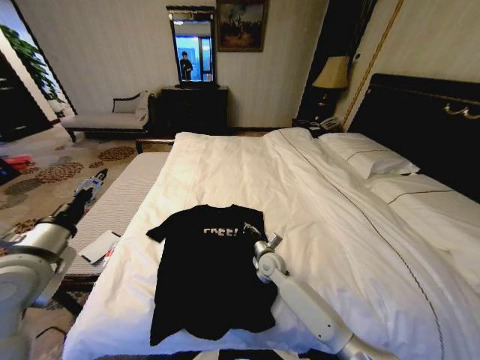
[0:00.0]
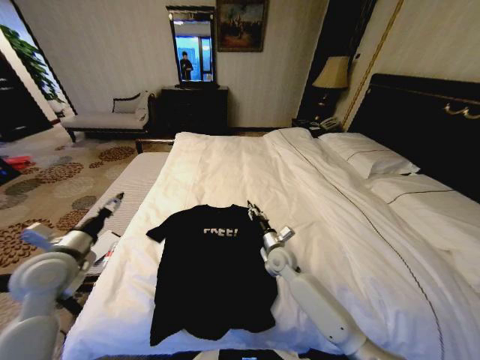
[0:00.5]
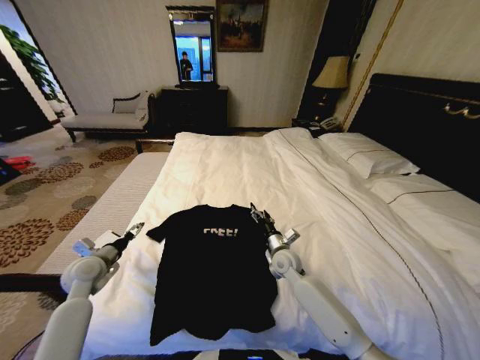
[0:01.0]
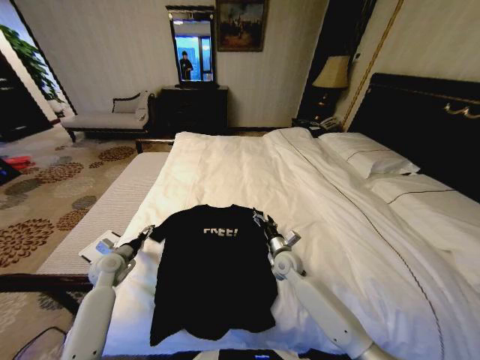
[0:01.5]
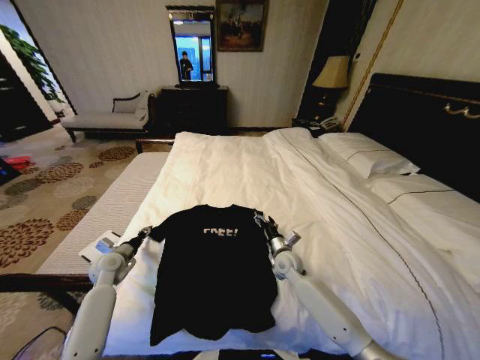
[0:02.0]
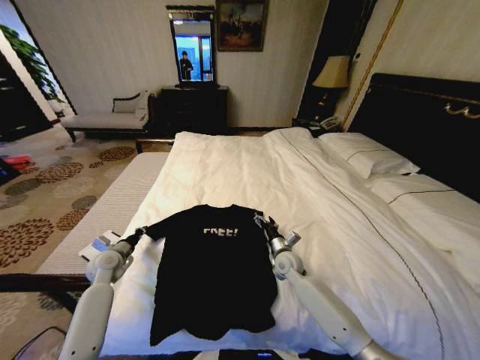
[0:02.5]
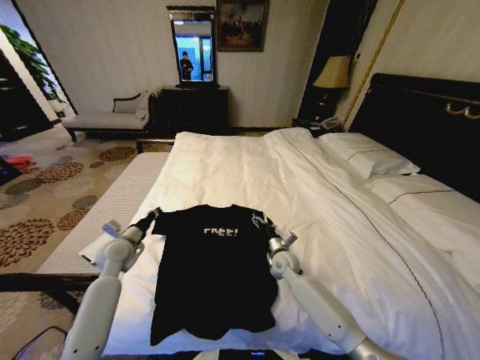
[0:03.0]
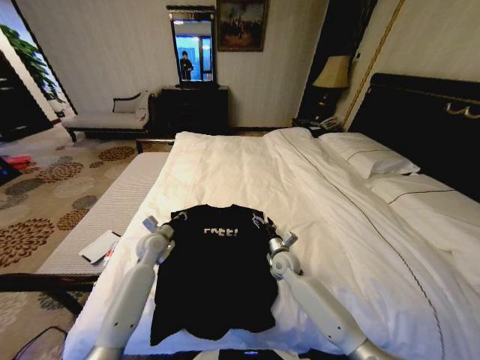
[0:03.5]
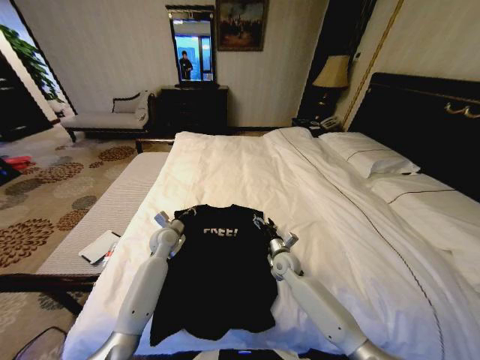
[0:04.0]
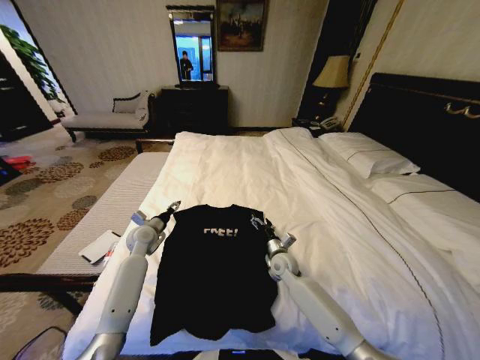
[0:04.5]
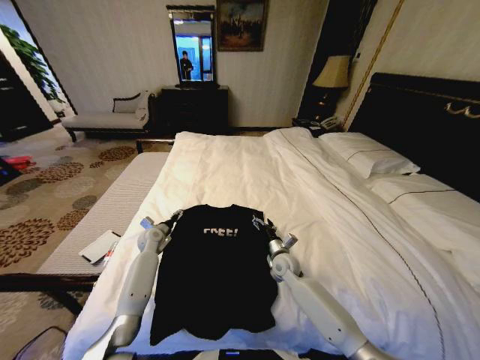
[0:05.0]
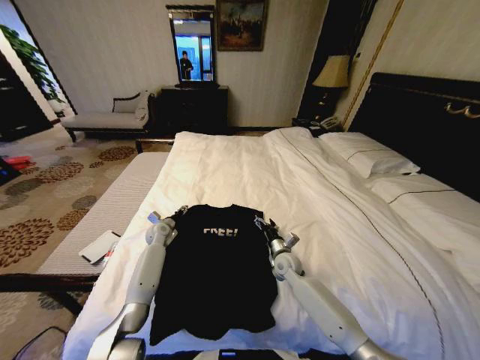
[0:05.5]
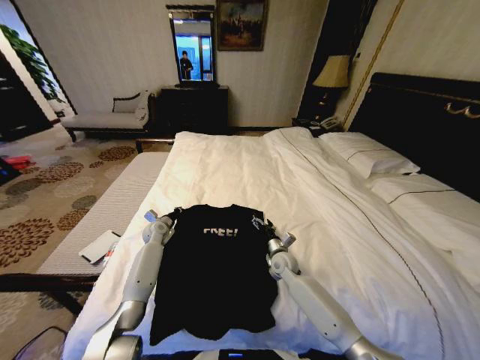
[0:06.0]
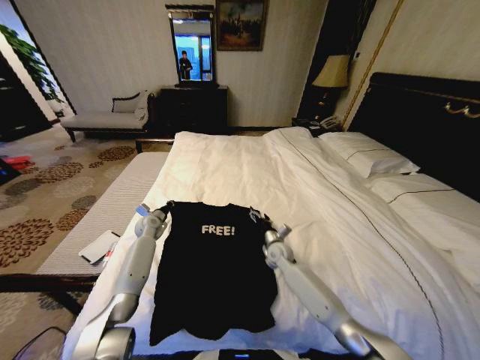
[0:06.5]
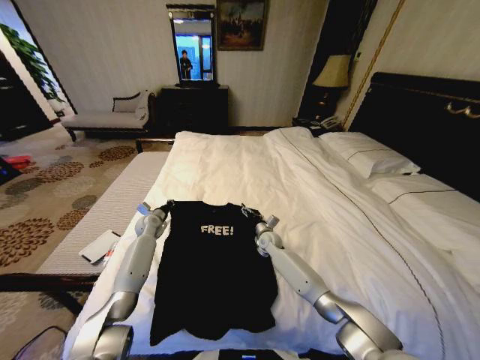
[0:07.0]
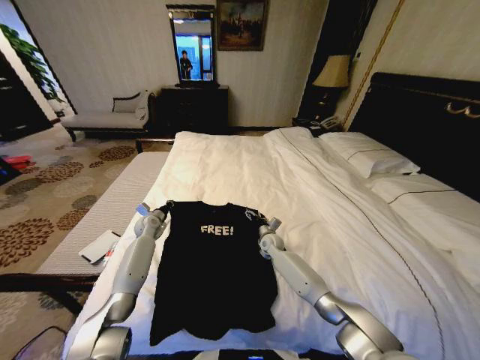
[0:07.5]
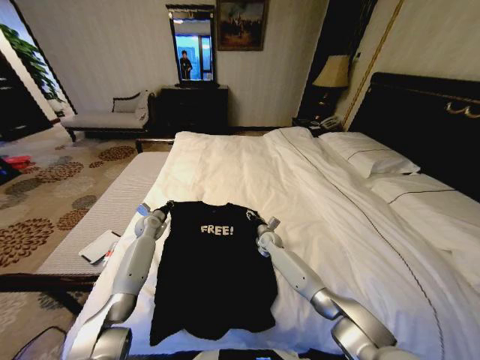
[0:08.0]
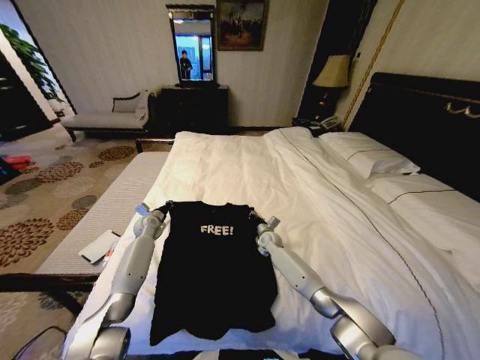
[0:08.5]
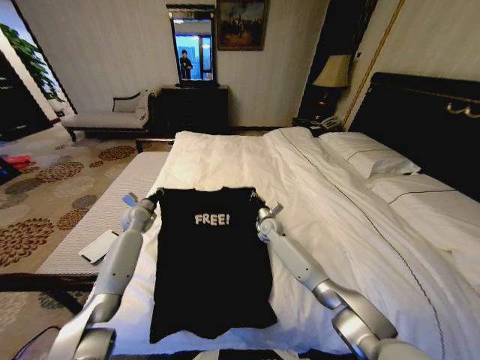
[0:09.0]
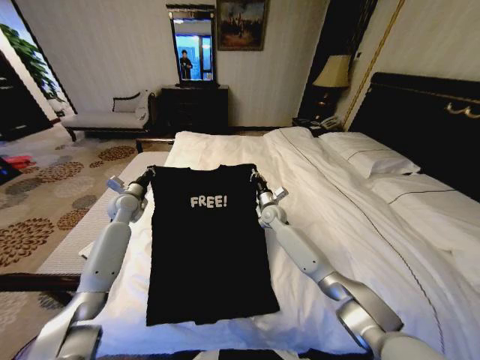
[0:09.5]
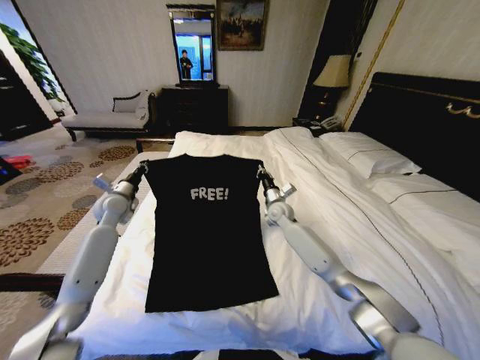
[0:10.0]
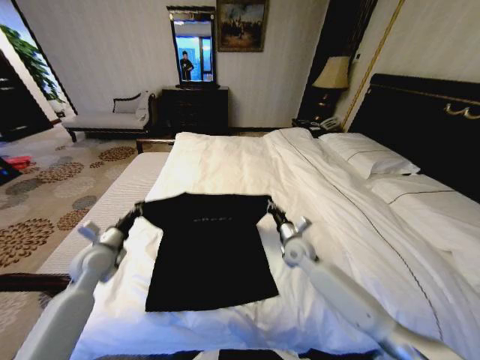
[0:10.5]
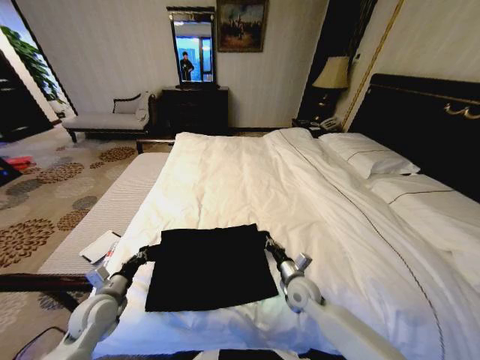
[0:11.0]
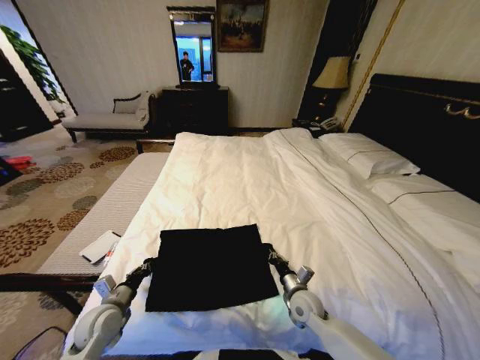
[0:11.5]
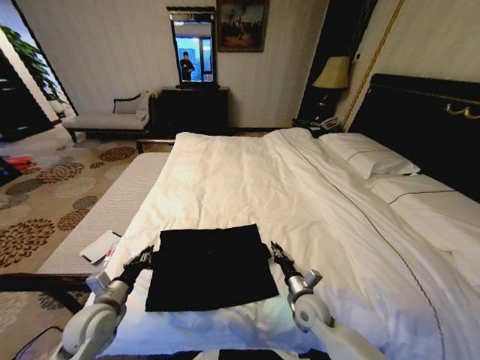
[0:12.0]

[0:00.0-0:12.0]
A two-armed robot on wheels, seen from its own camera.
Task of the whole recording: Fold the clothes on the bed.
0:00.0 to 0:02.0: The right gripper moves to the right, about 5 cm, and opens. Meanwhile the left gripper shifts about 25 cm downward and forward, and closes its fingers.
0:02.0 to 0:04.0: The left gripper shifts some 20 cm to the right and forward.
0:04.0 to 0:06.0: The left gripper moves forward and to the left, approximately 10 cm, and opens, then closes once more.
0:06.0 to 0:08.0: The right gripper shifts roughly 10 cm forward.
0:08.0 to 0:10.0: Both grippers travel together upward, roughly 15 cm. The right gripper closes up.
0:10.0 to 0:12.0: Both grippers travel together backward and downward, about 30 cm.

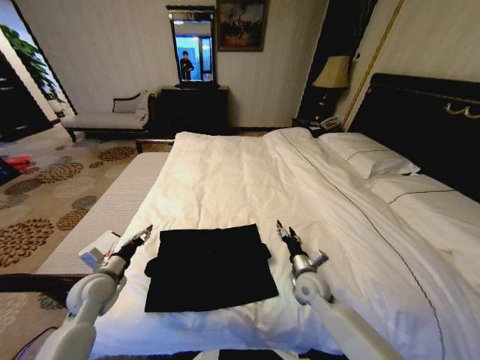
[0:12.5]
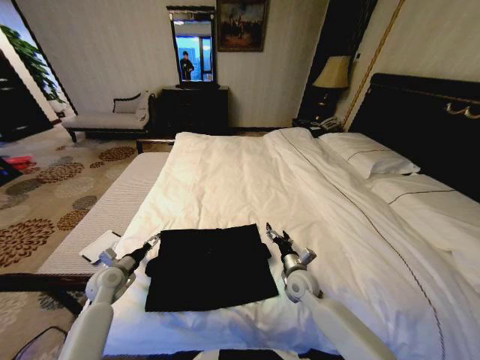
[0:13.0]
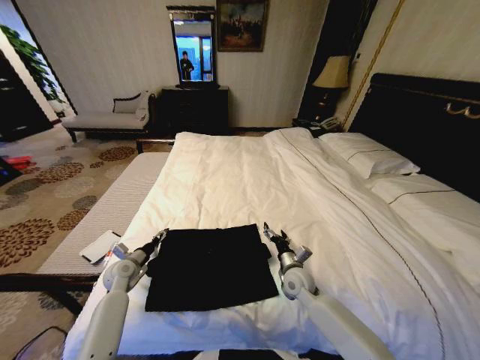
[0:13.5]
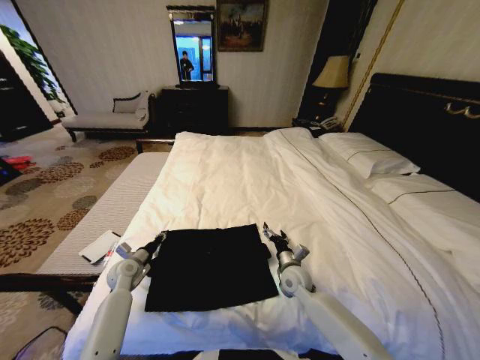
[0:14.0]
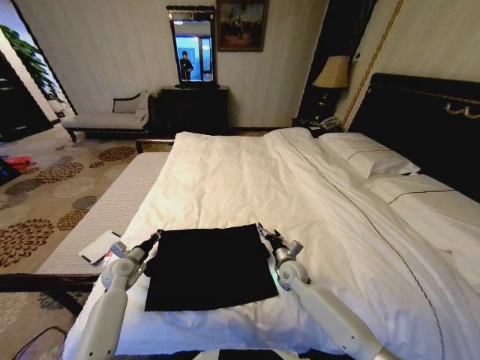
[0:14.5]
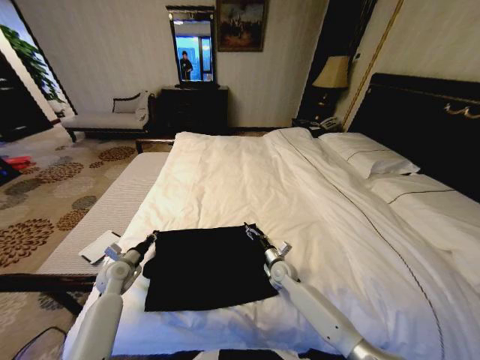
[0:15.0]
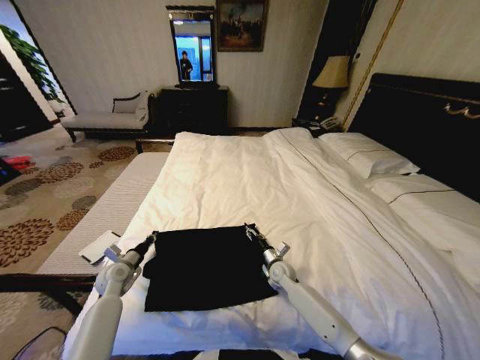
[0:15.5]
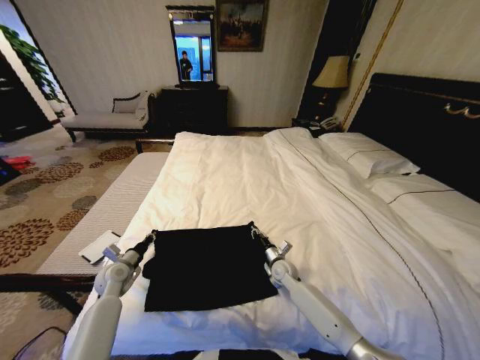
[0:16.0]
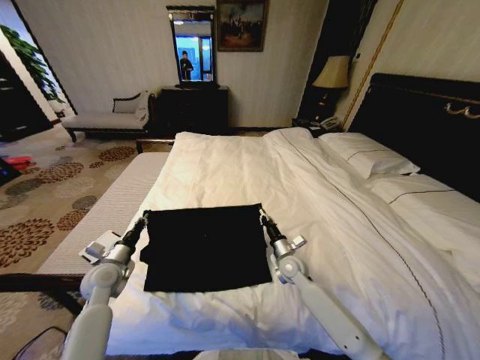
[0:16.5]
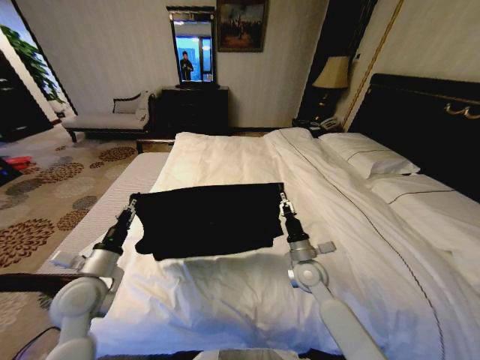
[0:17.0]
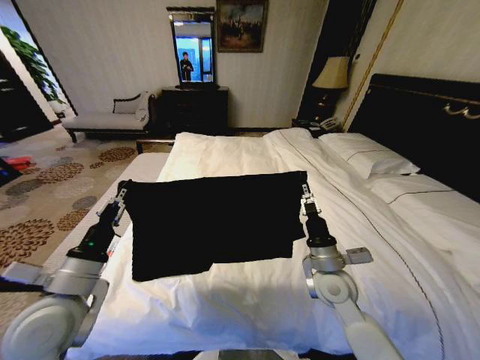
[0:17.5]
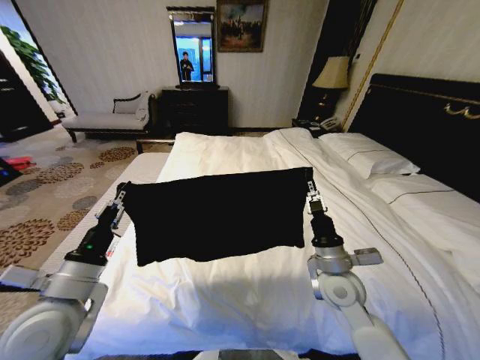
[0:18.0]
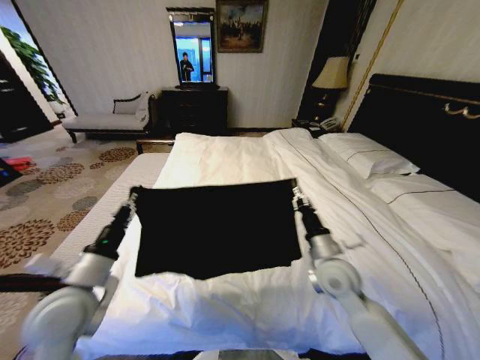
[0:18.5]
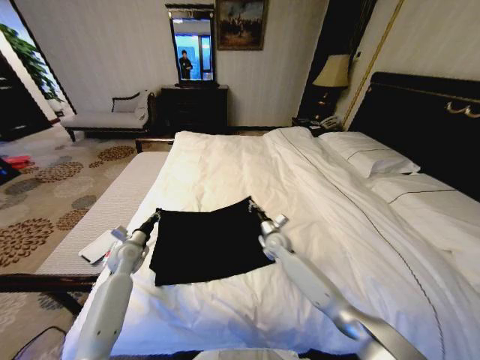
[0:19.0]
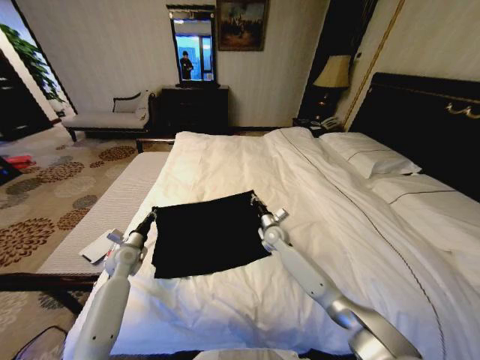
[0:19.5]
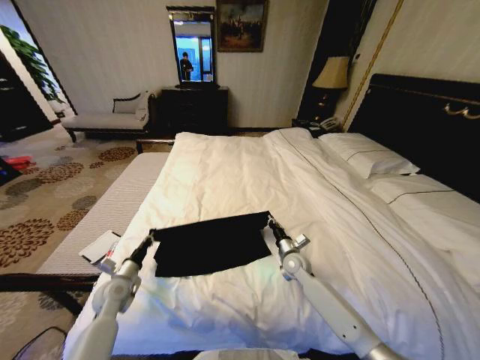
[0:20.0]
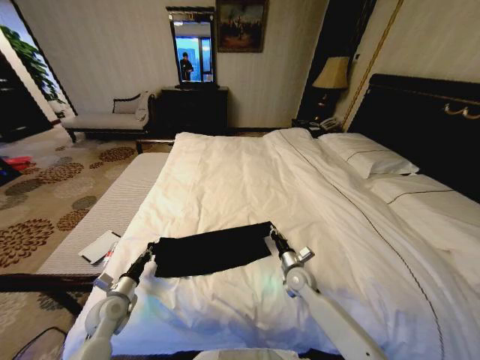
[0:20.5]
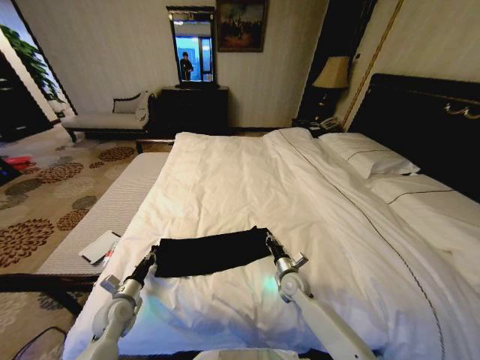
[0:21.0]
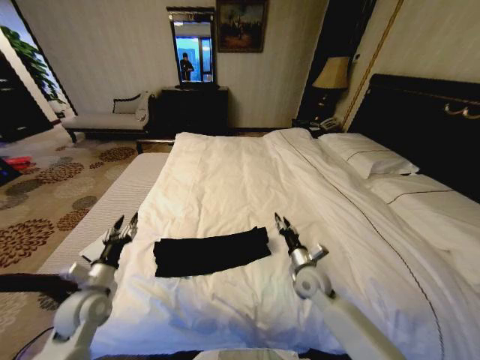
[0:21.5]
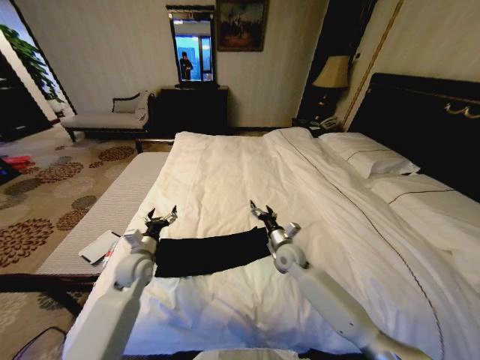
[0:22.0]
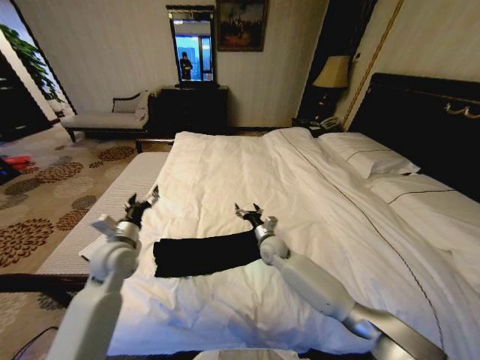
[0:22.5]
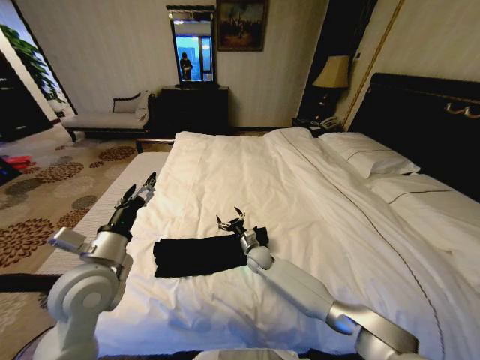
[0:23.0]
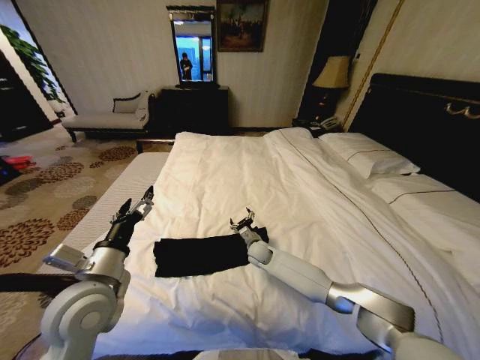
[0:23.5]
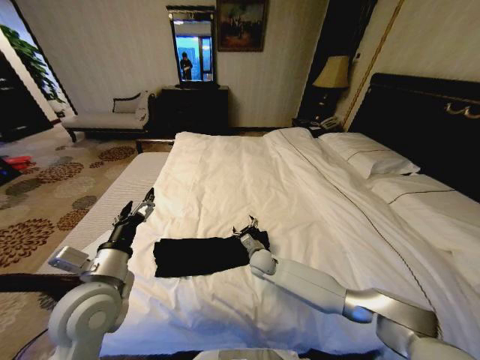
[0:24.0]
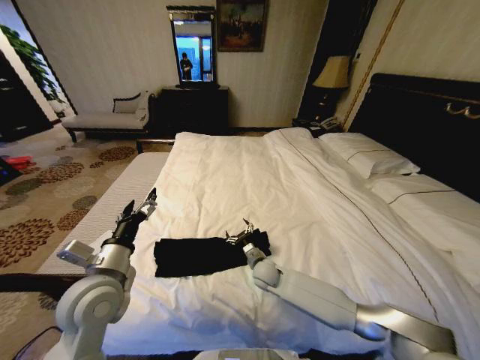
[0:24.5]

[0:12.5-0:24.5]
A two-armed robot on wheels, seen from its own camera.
Task of the whole recording: Fold the clothes on the bed.
0:12.5 to 0:14.5: The right gripper travels forward by approximately 5 cm. Meanwhile the left gripper is displaced forward and downward by approximately 10 cm, and closes.
0:14.5 to 0:16.5: The left gripper travels upward by about 5 cm; the right gripper closes.
0:16.5 to 0:18.5: The right gripper travels upward and backward by about 15 cm. The left gripper travels upward, backward and to the right by about 20 cm.
0:18.5 to 0:20.5: The two grippers go some 20 cm downward. The right gripper goes forward and returns, about 20 cm each way.
0:20.5 to 0:22.5: The left gripper moves upward and forward, approximately 20 cm, and opens. The right gripper heads forward, to the left and upward, covering roughly 15 cm, and opens its fingers.
0:22.5 to 0:24.5: The right gripper moves backward, roughly 5 cm. The left gripper heads backward, covering about 10 cm.

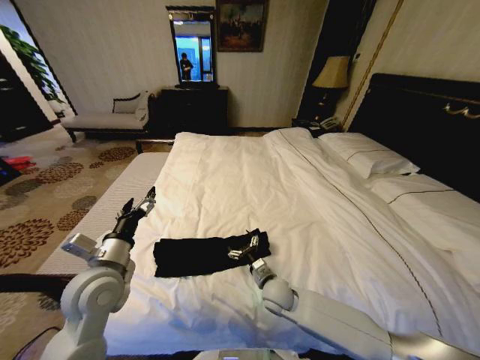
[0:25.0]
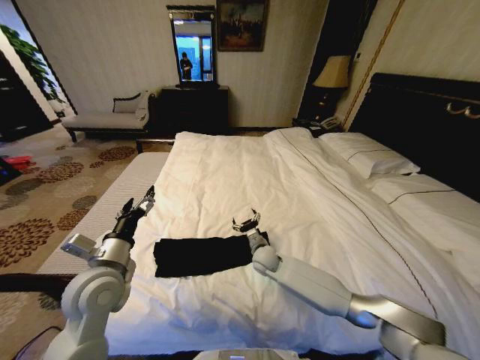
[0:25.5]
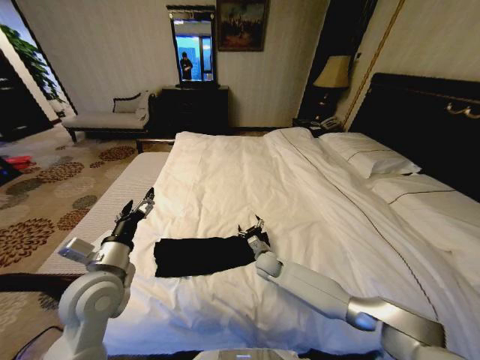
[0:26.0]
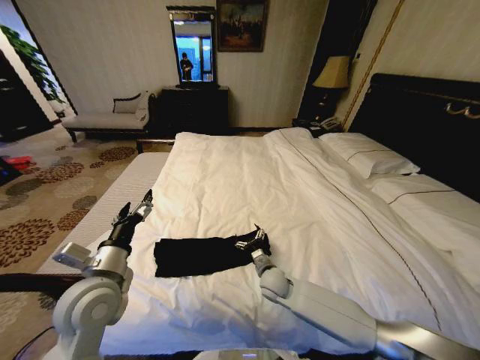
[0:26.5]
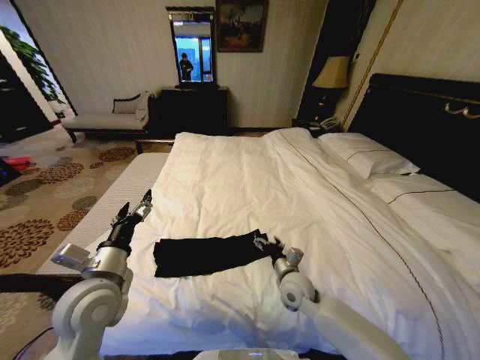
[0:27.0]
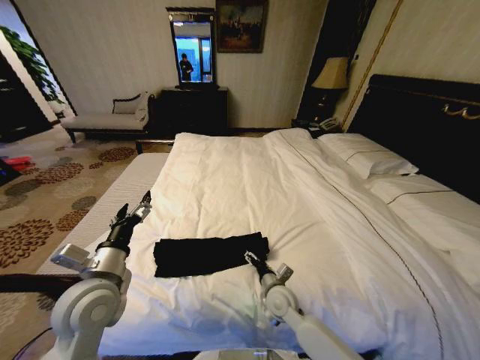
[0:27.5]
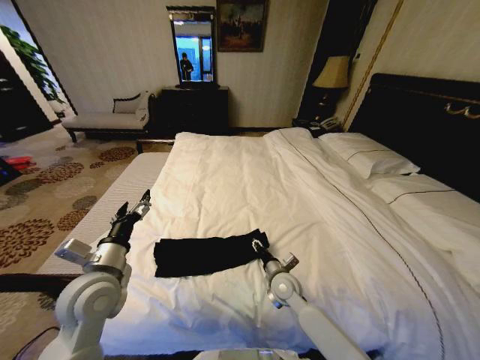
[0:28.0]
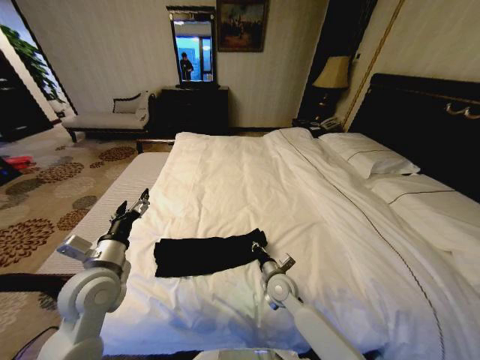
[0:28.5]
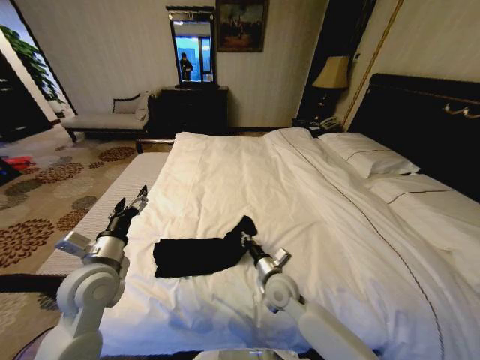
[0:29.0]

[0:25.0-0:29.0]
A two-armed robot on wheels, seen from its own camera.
Task of the whole recording: Fold the clothes on the bed.
0:25.0 to 0:27.0: The right gripper travels to the right by approximately 5 cm, and travels forward and back again, about 10 cm each way.
0:27.0 to 0:29.0: The right gripper shifts roughly 5 cm to the left, and closes up.
